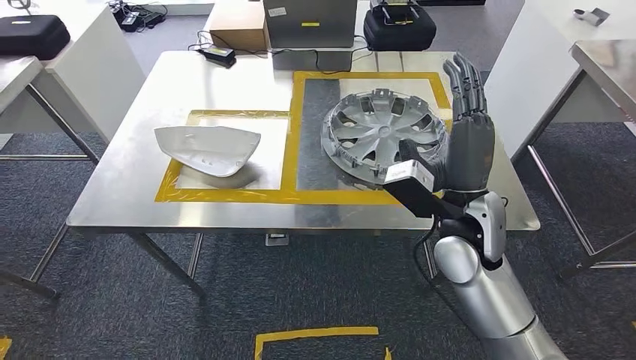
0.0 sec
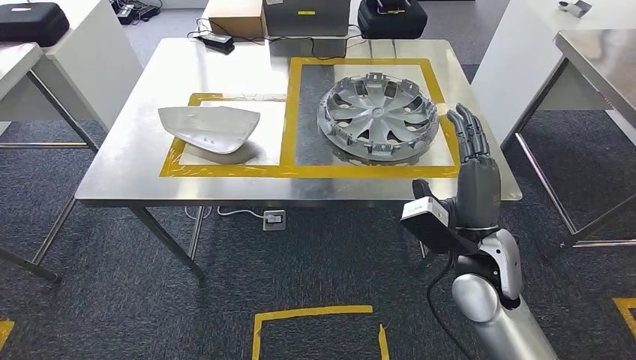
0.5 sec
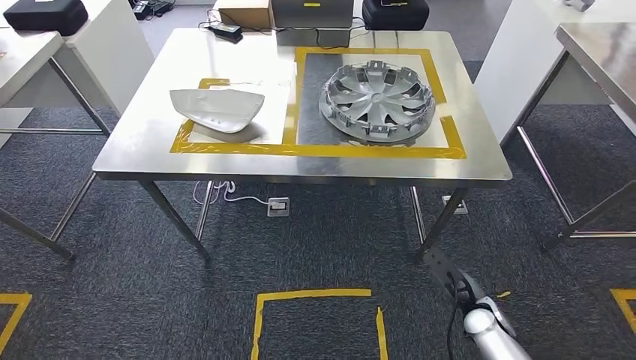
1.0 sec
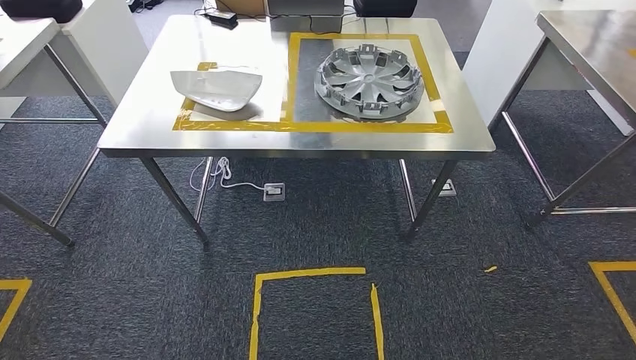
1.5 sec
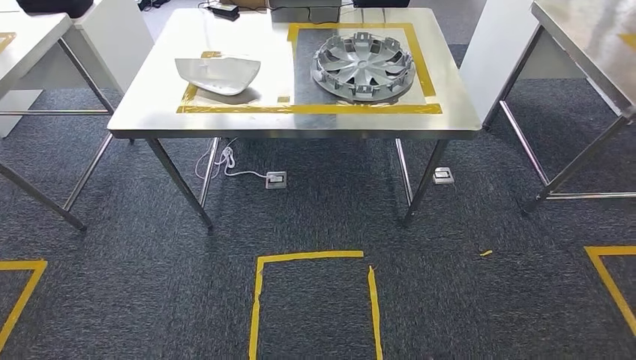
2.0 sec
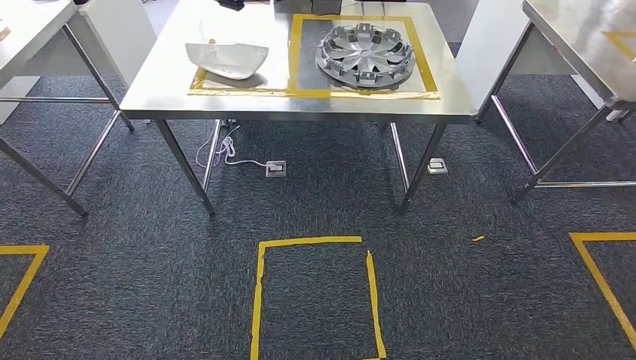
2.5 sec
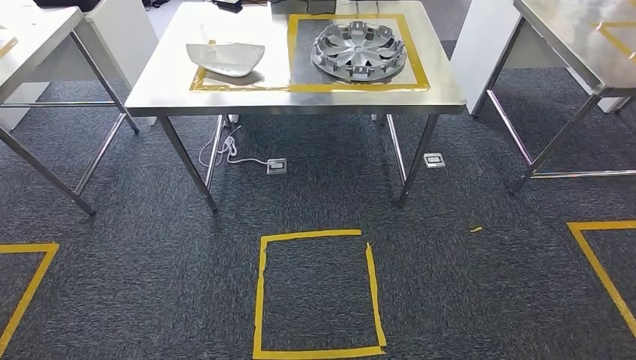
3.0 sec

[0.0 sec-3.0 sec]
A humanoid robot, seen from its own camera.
Step, 0.0 sec to 3.0 sec: Move to the initial position of the workbench.
